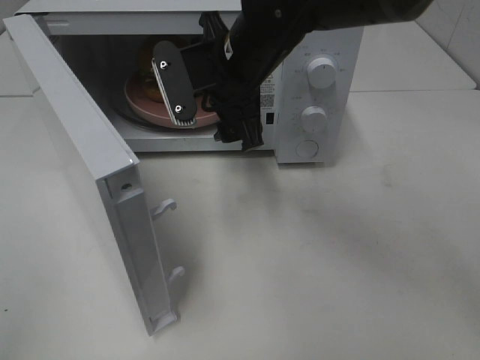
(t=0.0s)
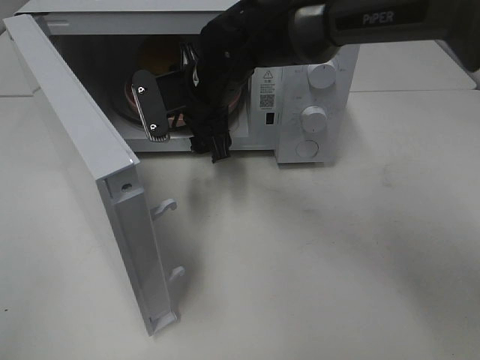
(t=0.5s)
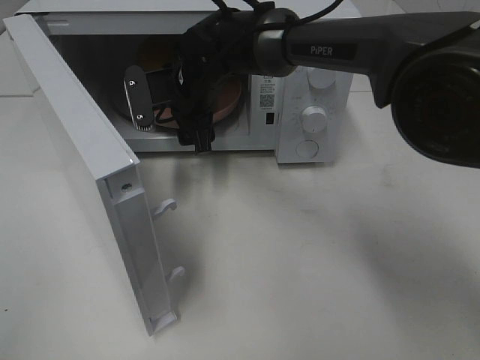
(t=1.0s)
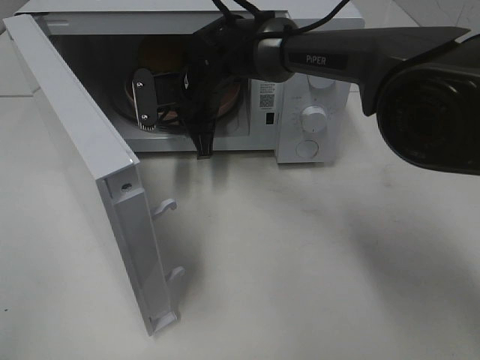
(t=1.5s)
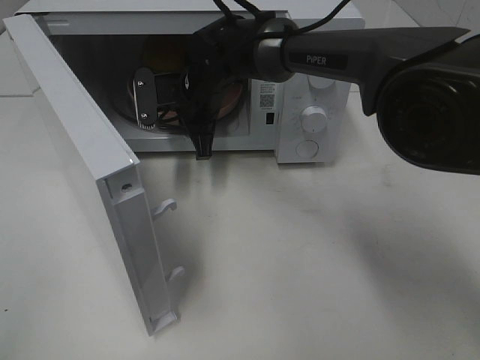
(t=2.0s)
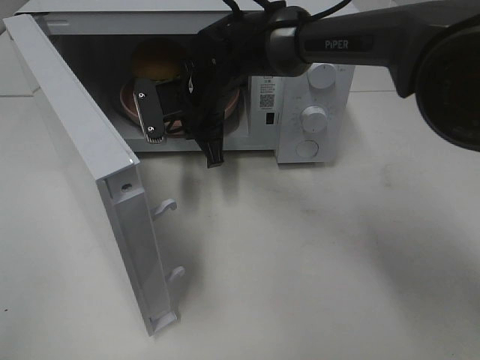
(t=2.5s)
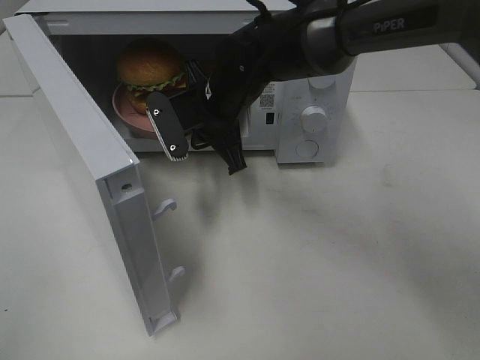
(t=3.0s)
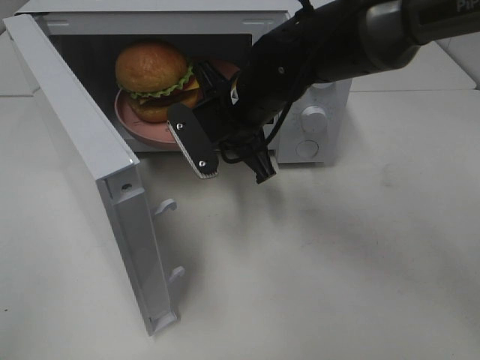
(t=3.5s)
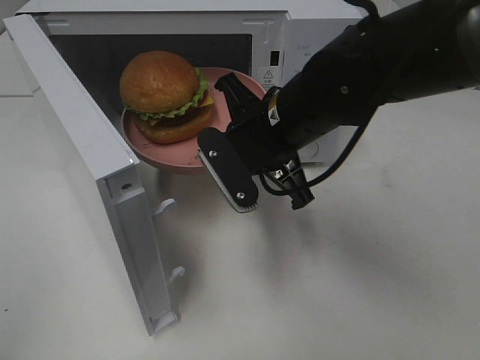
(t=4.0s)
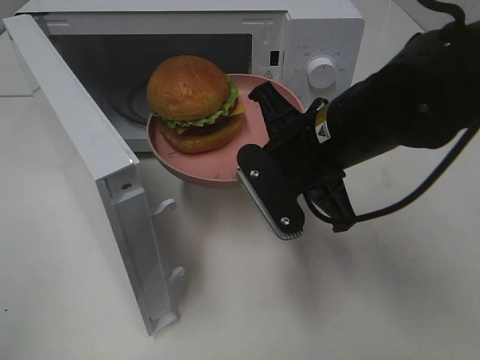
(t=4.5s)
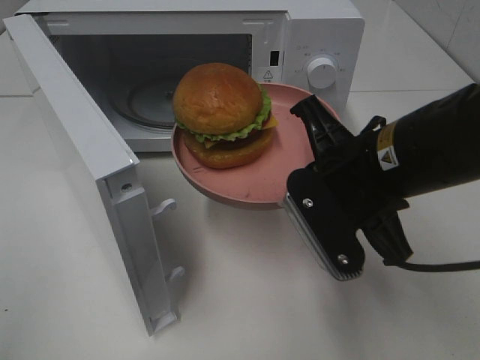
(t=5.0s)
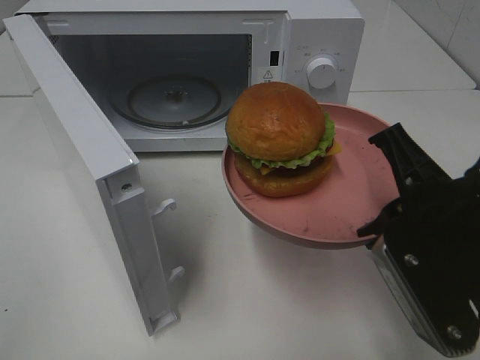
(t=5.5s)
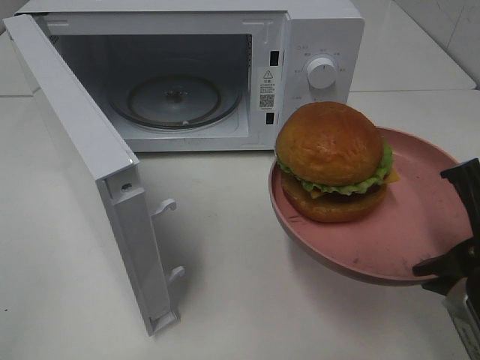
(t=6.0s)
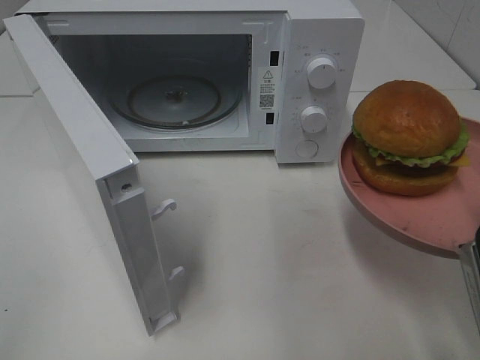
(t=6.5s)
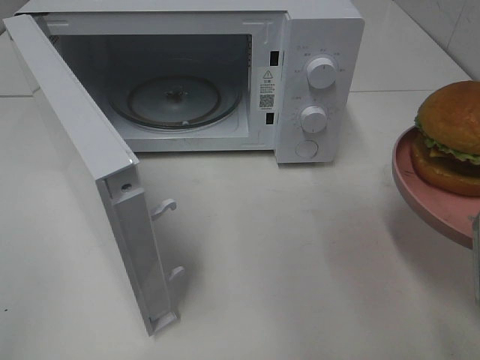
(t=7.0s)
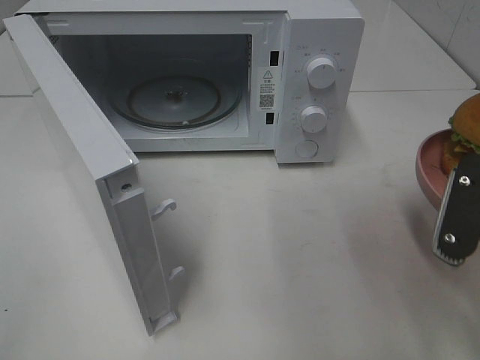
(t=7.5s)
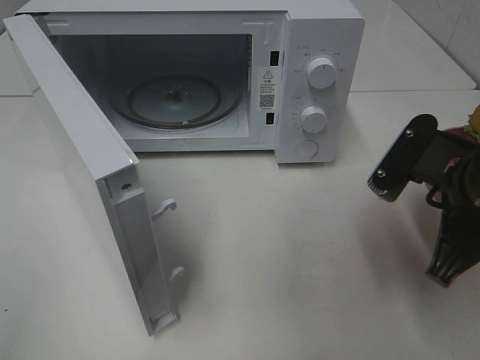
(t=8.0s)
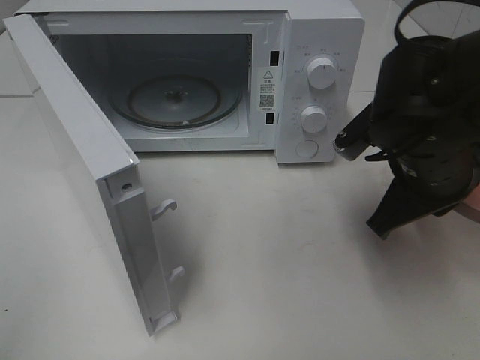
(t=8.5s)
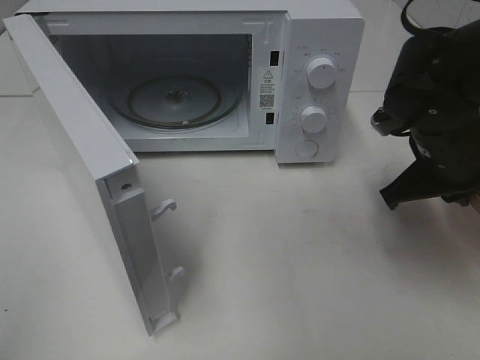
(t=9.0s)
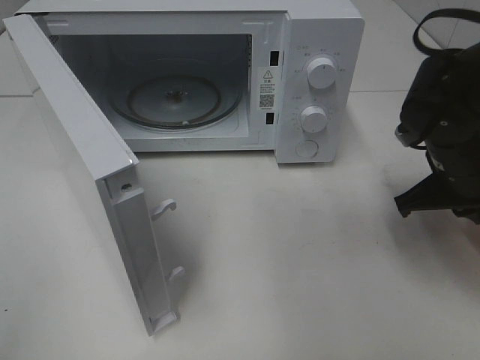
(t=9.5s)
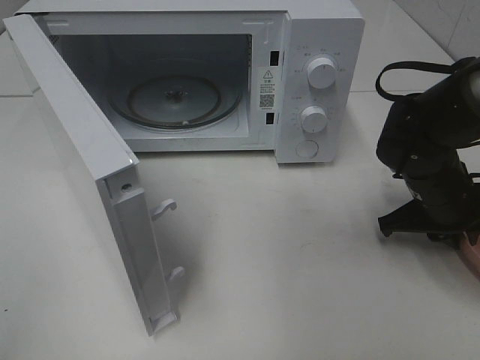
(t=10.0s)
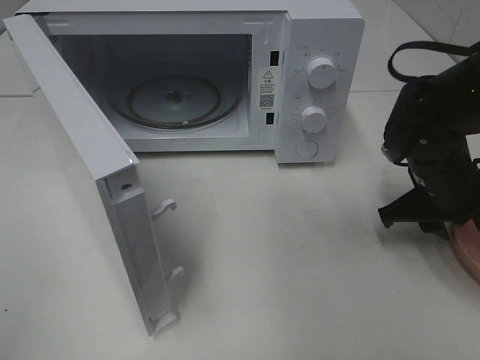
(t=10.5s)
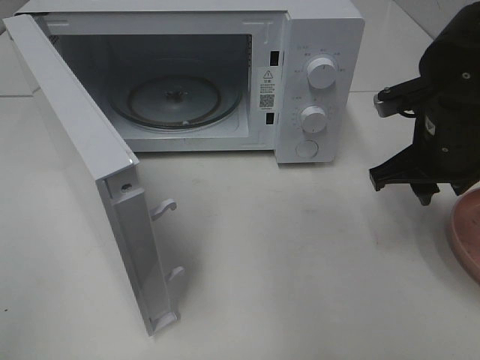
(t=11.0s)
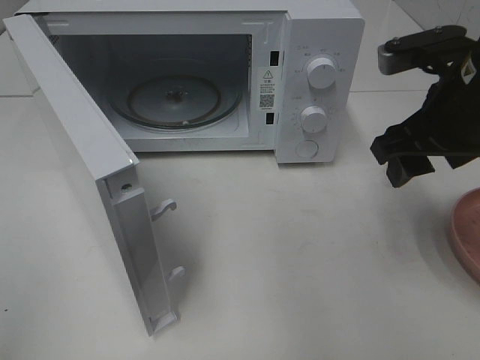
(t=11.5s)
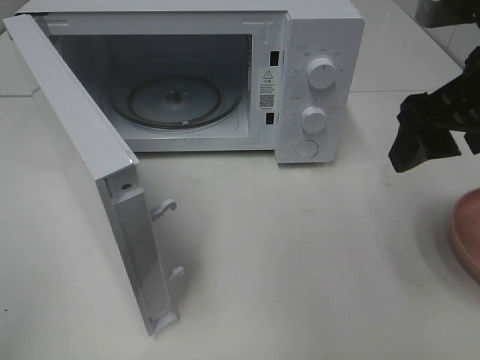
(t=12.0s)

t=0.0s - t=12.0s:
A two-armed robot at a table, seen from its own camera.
Task of the whole recording: Heat the burger.
Step, t=2.0s - t=10.5s: Right hand: place the plate on the table.
t=0.0s - t=2.0s: The right gripper shifts approximately 10 cm forward and downward, and closes.
t=2.0s - t=4.0s: The right gripper moves backward and to the right, roughly 15 cm.
t=4.0s - t=6.0s: The right gripper moves backward and to the right, about 25 cm.
t=6.0s - t=8.0s: The right gripper heads forward, covering some 10 cm.
t=8.0s - t=10.0s: The right gripper heads forward and downward, covering about 15 cm.
t=10.0s - t=12.0s: The right gripper is displaced upward by about 20 cm, and opens its fingers.

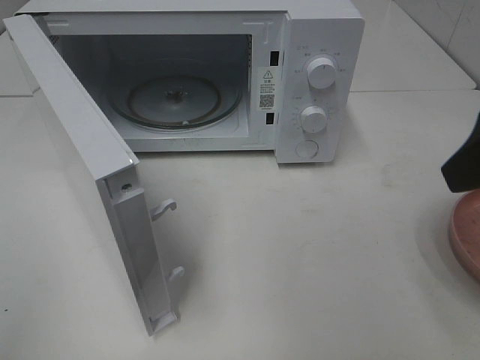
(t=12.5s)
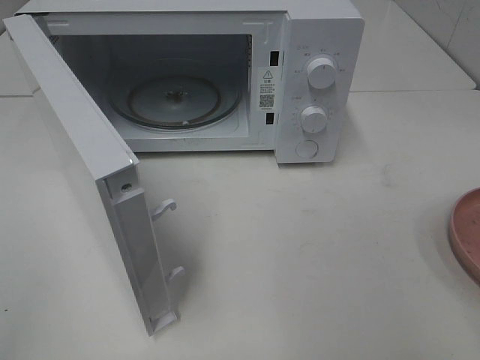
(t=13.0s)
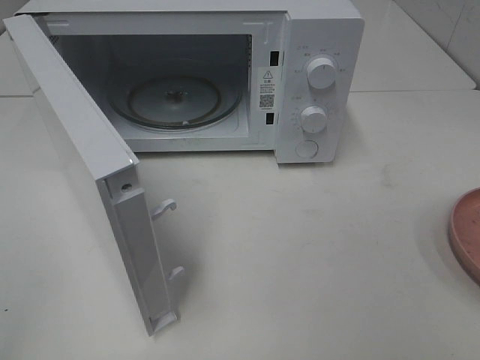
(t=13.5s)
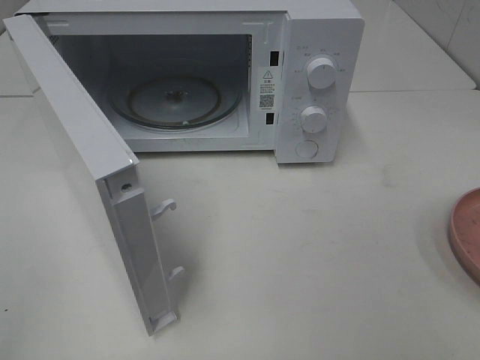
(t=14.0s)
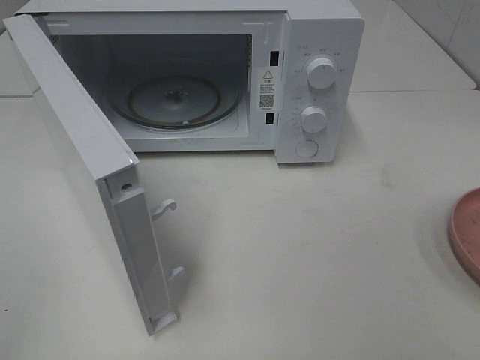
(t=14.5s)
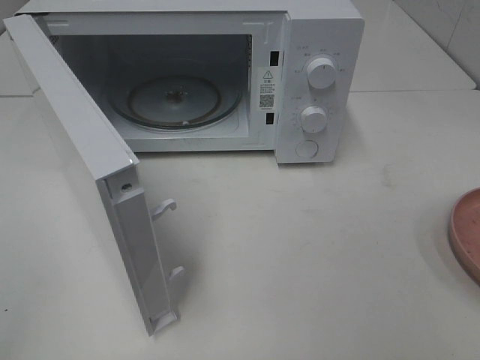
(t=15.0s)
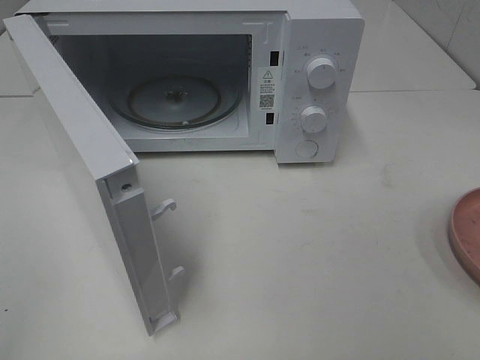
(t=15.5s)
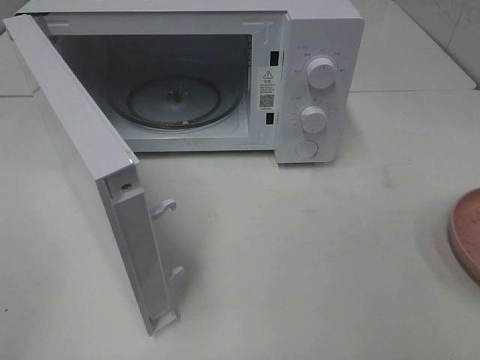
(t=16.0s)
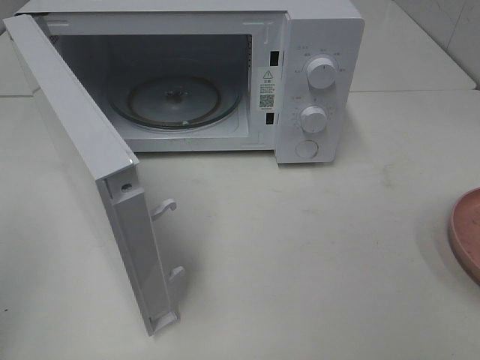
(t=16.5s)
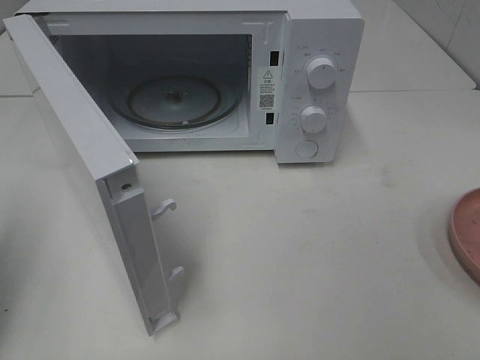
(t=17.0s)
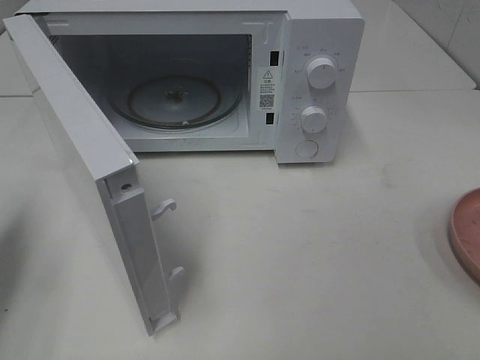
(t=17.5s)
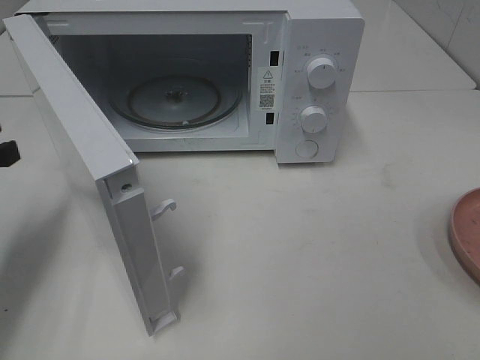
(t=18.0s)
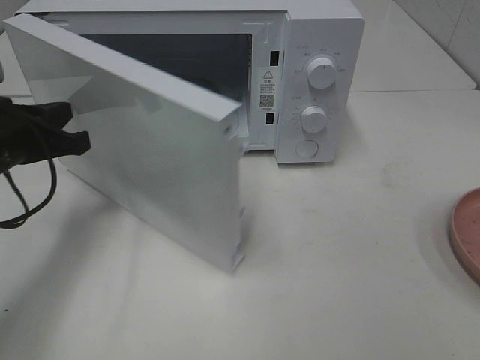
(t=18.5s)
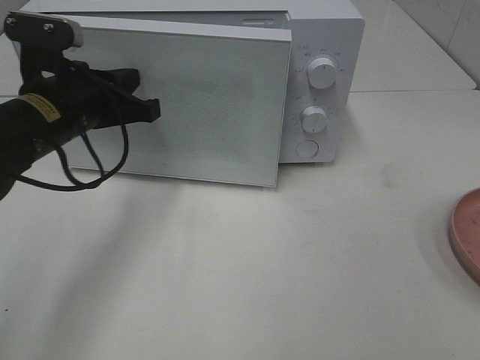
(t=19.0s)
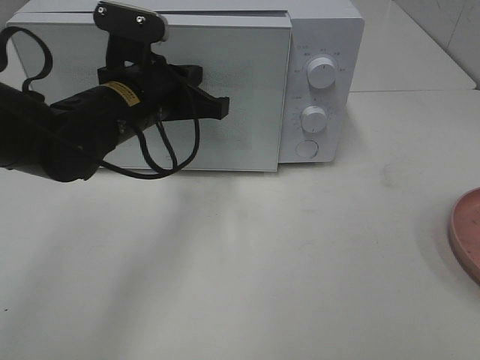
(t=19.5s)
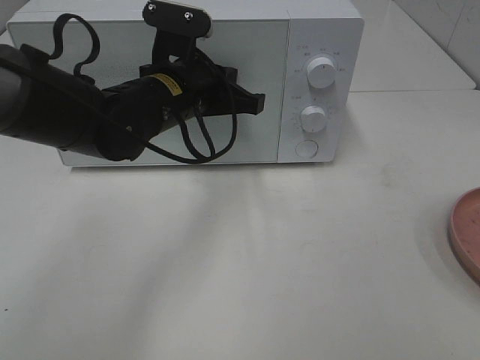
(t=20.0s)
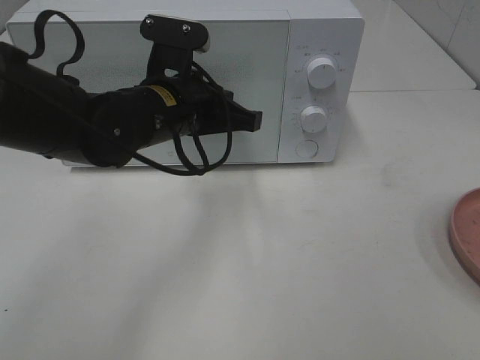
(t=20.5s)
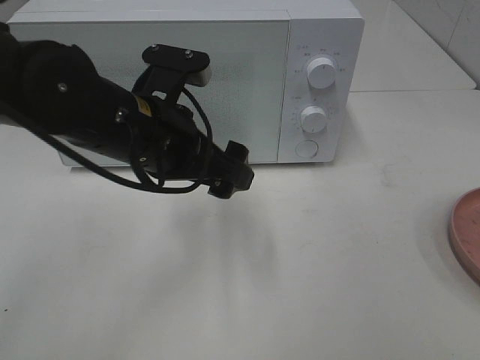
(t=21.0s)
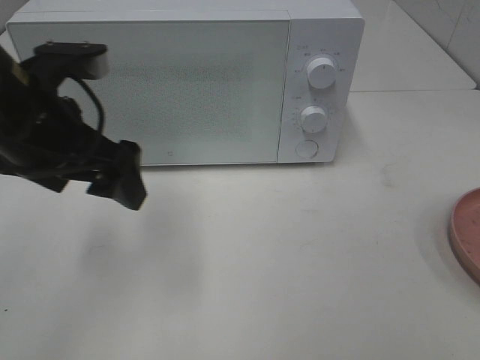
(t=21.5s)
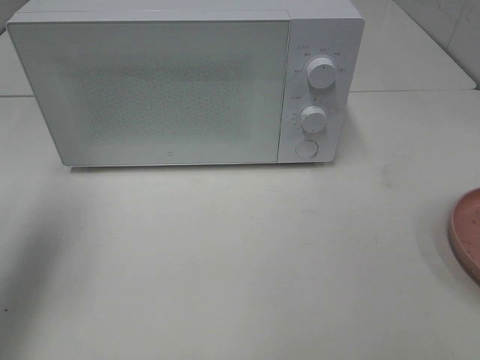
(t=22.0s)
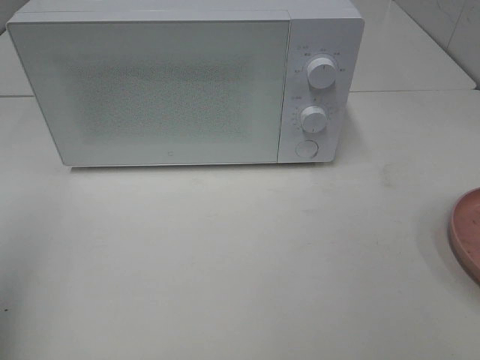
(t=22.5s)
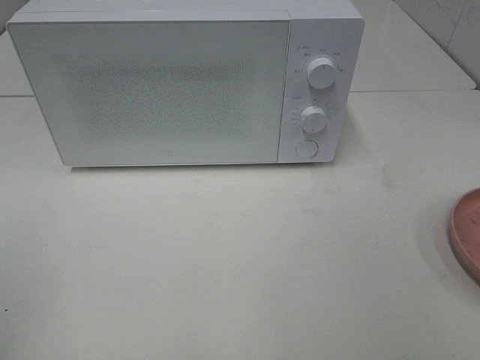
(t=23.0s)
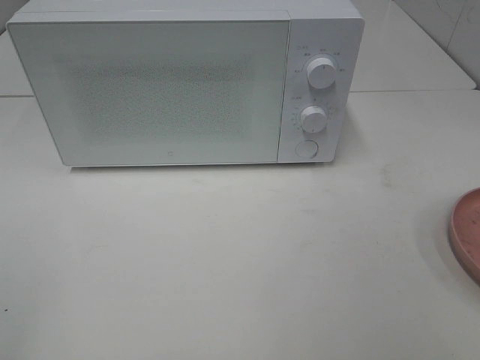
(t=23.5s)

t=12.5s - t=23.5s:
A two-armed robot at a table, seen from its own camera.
Task of the whole recording: Heat the burger.
Step, t=12.5s - t=20.5s: Left hand: close the microwave door.
t=12.5s - t=14.5s: The right gripper moves backward, approximately 15 cm.
t=16.0s - t=18.0s: The left gripper moves forward and downward, approximately 25 cm, and closes up.
t=18.0s - t=20.0s: The left gripper is displaced to the right and forward by approximately 25 cm.
t=20.0s - t=21.5s: The left gripper is displaced to the left, backward and upward by some 15 cm, and opens.
t=21.5s - t=23.5s: The left gripper is displaced backward and to the left by approximately 30 cm.

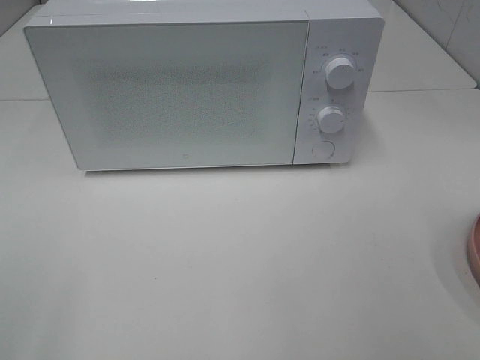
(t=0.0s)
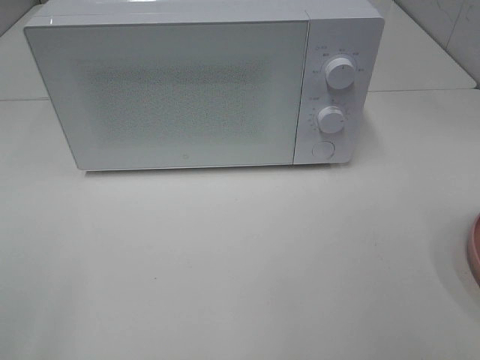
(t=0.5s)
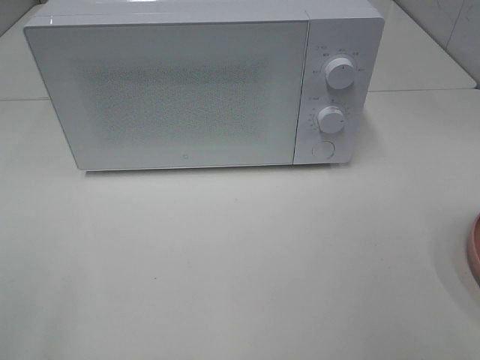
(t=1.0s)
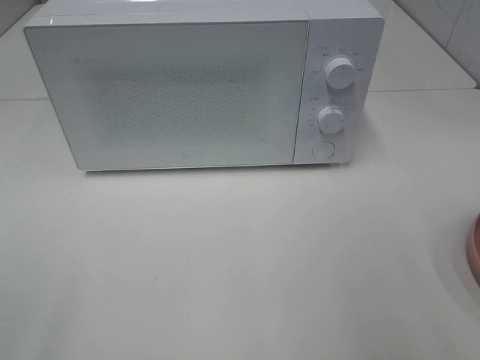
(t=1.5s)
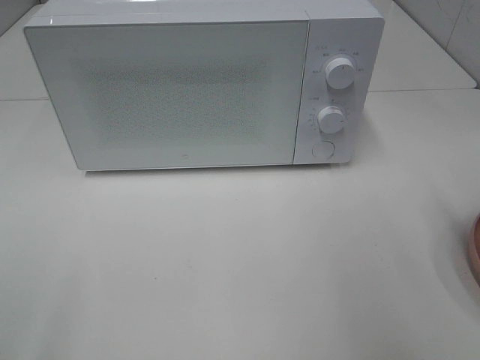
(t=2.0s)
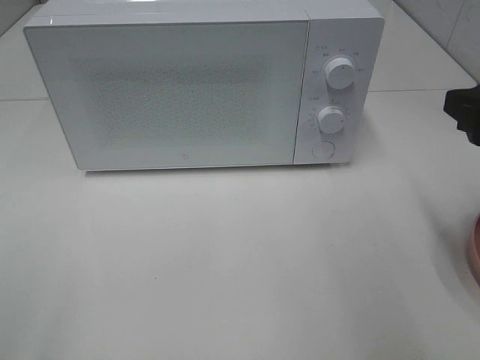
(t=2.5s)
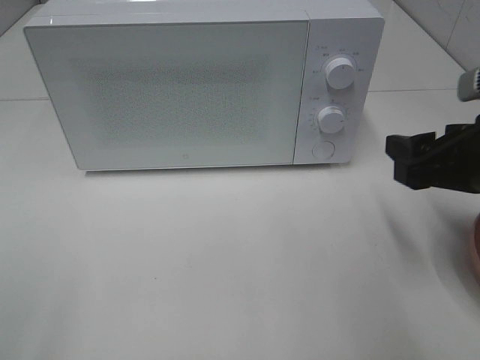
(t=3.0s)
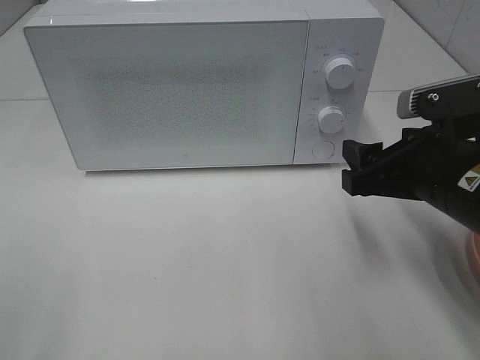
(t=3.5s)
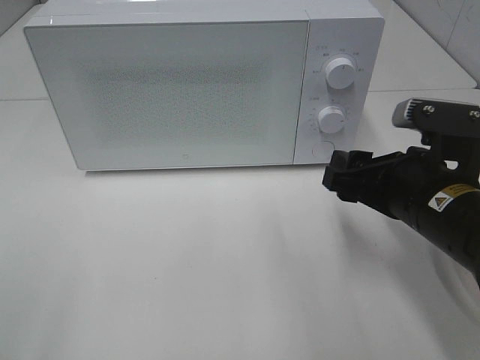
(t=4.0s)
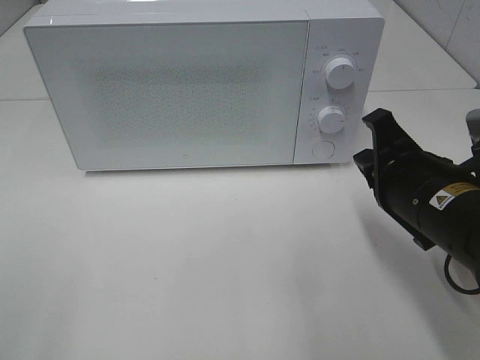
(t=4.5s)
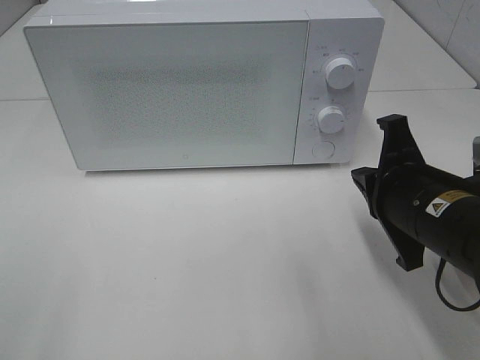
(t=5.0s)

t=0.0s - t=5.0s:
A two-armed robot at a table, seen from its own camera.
Task of the whole recording: Heat the burger.
t=0.0s - t=2.5s: The right gripper moves forward, some 20 cm.
t=2.5s - t=5.0s: The right gripper travels downward and to the left by about 15 cm, and closes its fingers.
